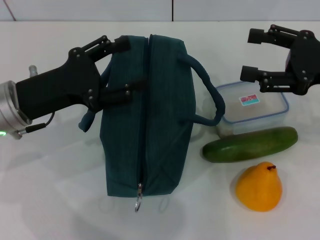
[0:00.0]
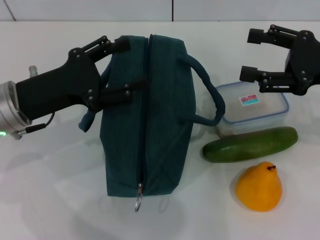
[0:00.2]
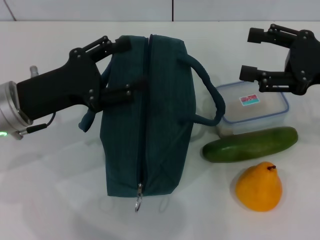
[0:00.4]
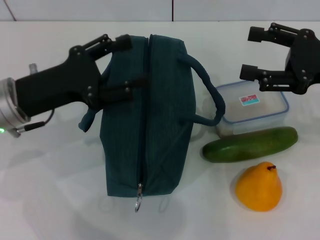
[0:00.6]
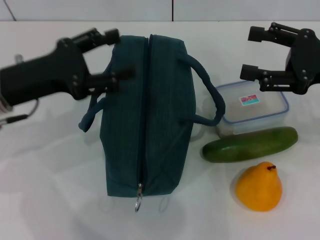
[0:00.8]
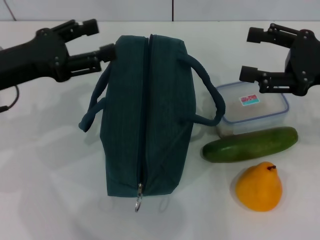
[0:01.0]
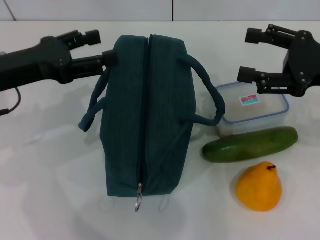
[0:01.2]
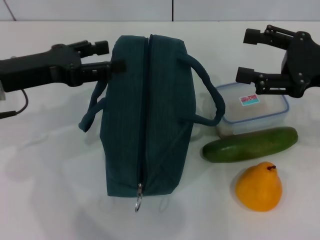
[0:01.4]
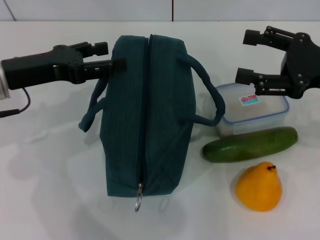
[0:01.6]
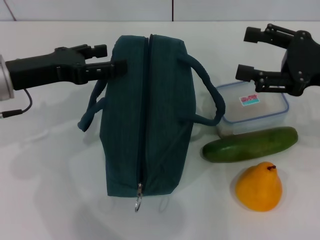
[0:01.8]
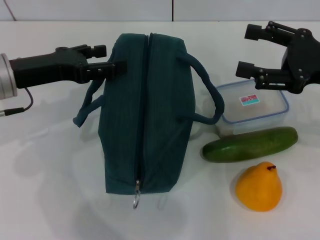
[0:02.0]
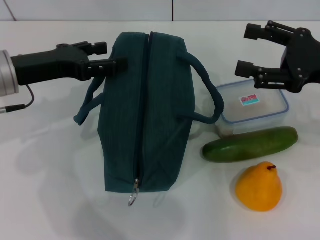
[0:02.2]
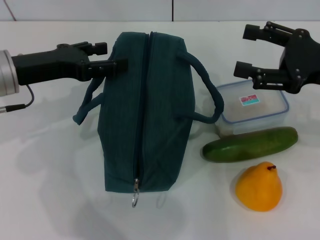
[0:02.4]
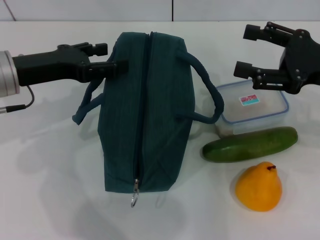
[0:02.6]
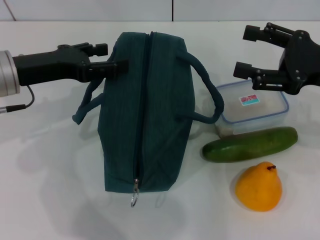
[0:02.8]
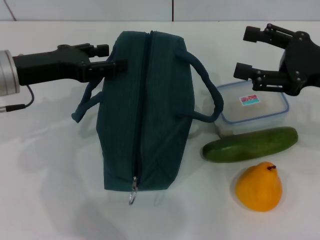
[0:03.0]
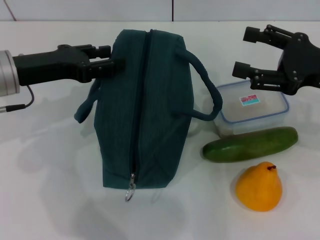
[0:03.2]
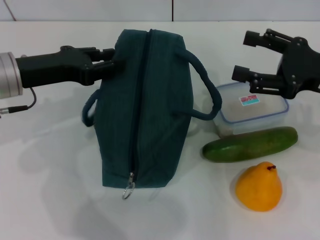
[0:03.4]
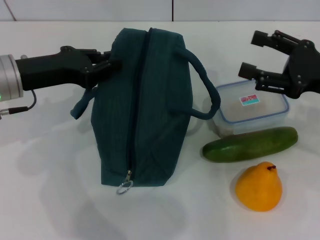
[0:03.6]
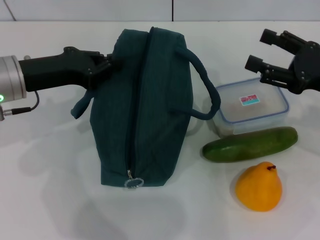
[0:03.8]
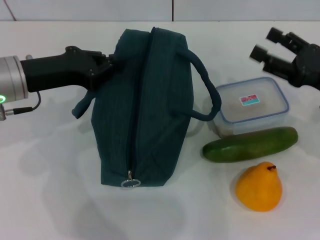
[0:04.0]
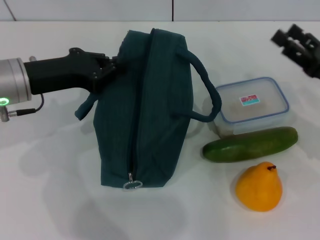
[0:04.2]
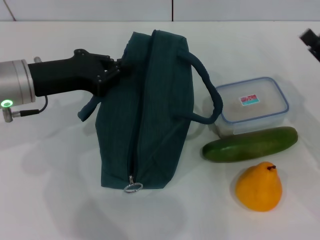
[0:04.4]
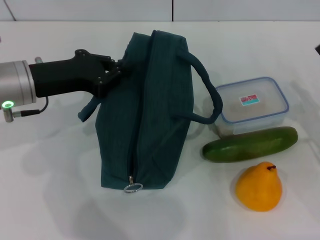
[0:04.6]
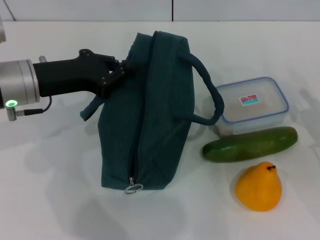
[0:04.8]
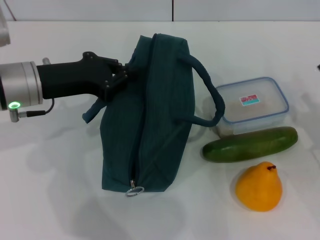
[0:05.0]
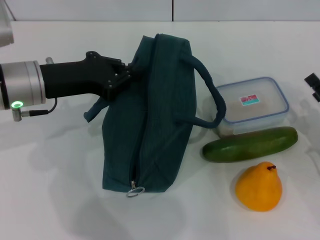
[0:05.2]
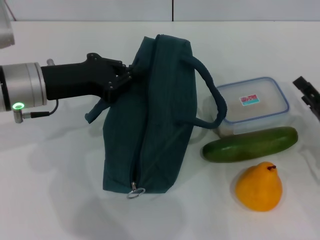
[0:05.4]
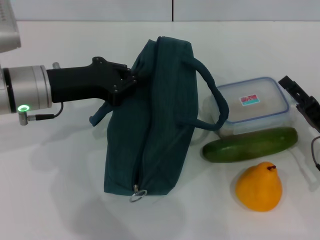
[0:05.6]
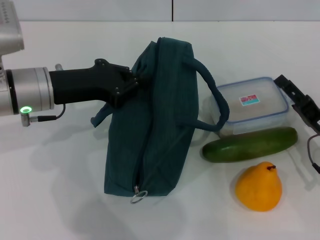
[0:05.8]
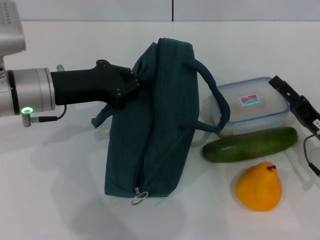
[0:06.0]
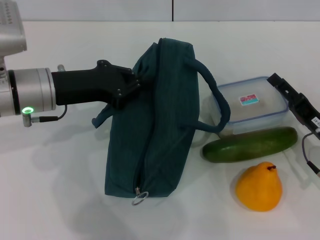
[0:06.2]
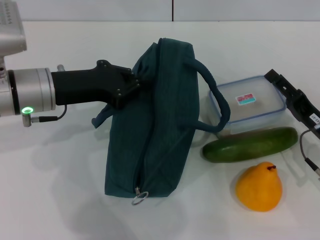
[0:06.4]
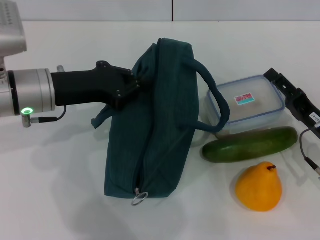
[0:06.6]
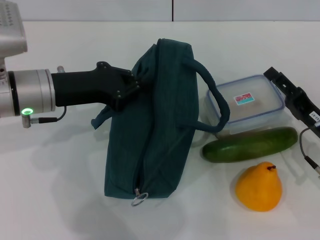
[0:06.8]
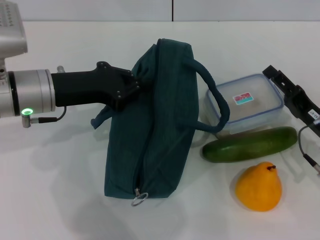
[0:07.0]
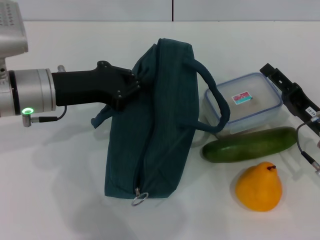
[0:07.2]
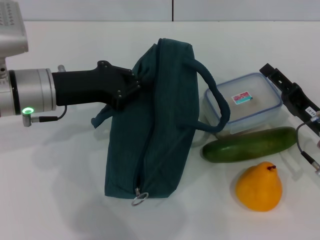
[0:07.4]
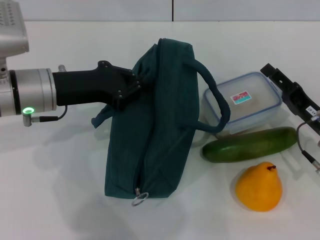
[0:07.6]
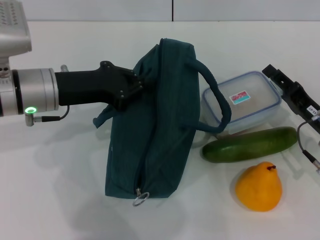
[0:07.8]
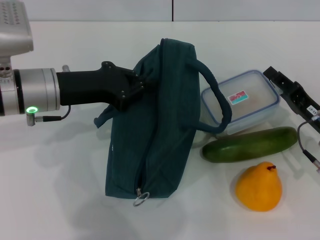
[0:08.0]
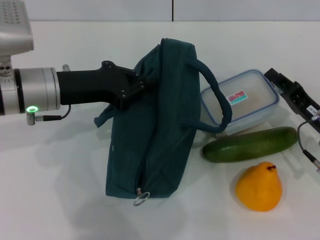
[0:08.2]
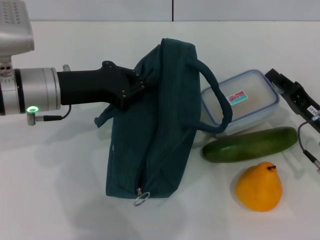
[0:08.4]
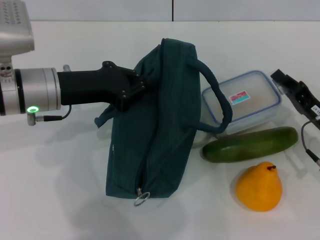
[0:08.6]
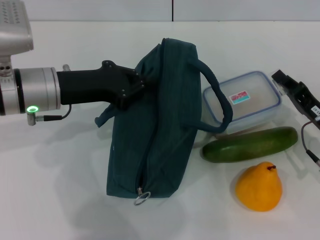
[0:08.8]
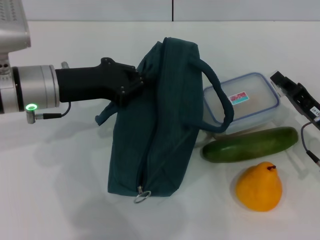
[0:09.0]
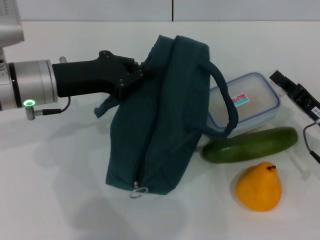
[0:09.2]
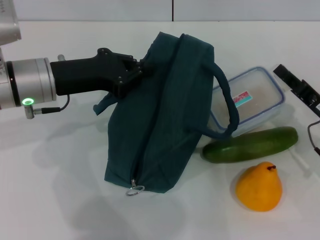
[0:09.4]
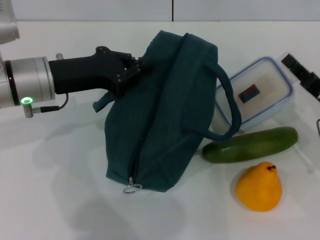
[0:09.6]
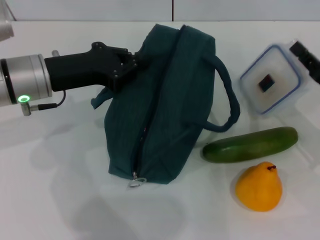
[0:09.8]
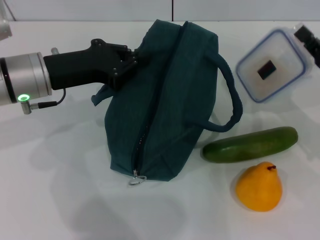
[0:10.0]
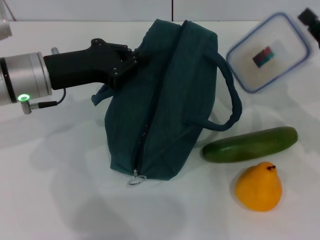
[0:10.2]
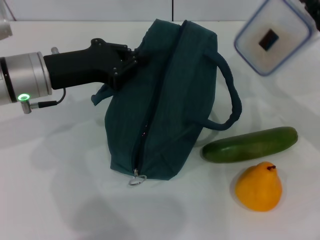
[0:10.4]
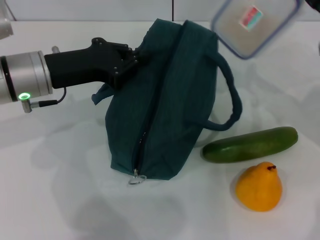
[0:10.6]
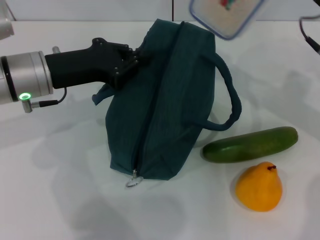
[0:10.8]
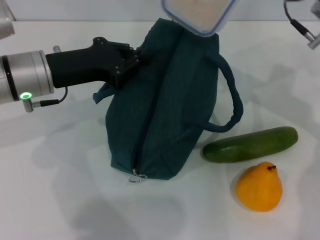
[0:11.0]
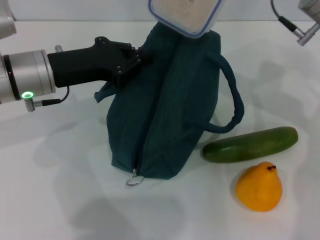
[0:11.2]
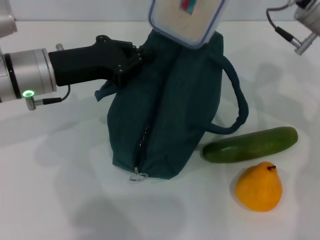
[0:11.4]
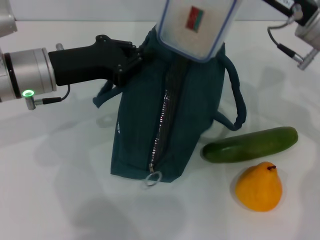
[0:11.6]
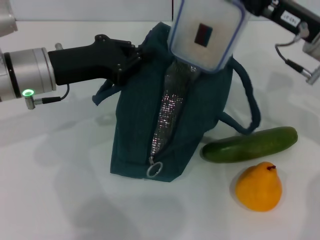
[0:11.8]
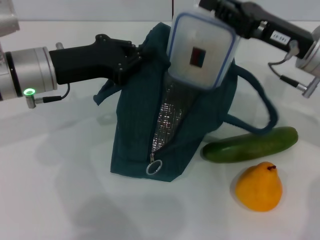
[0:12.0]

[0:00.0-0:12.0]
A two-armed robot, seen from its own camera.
Step, 0:00.0 to 0:04.0: Hold the lunch bag with your left hand.
Step, 0:04.2 to 0:09.2: Pick up the lunch box with your right hand.
0:01.6 to 0:03.0: The grippers make only small movements.
0:03.0 to 0:04.4: The right gripper shifts approximately 10 cm downward. The left gripper closes up.
0:04.4 to 0:06.0: The right gripper moves some 5 cm.
0:06.0 to 0:07.6: The grippers move only a little.
0:07.6 to 0:09.0: The right gripper closes its fingers.
0:09.0 to 0:10.4: The right gripper goes approximately 10 cm upward.
0:10.4 to 0:12.0: The right gripper is displaced to the left by about 10 cm.

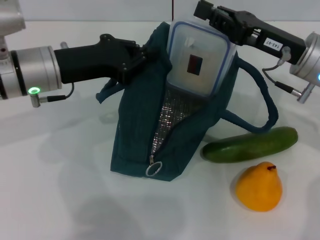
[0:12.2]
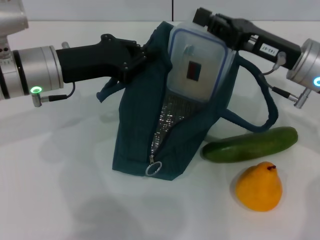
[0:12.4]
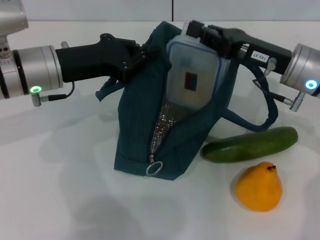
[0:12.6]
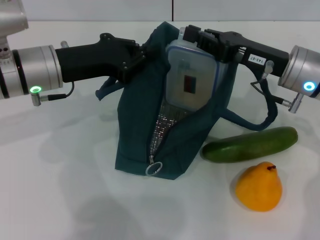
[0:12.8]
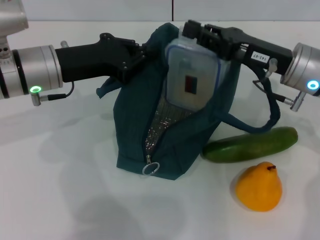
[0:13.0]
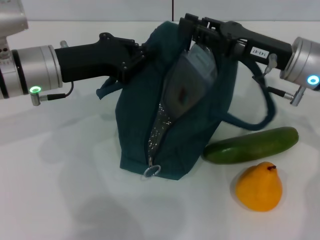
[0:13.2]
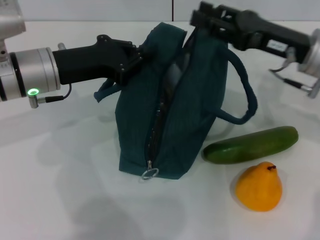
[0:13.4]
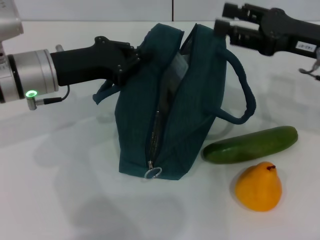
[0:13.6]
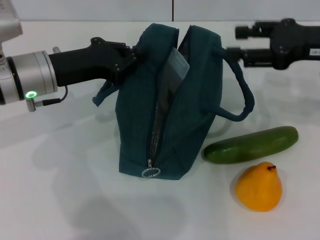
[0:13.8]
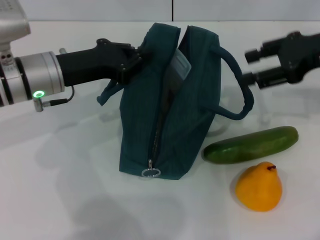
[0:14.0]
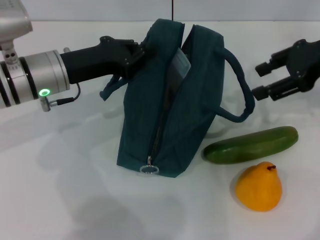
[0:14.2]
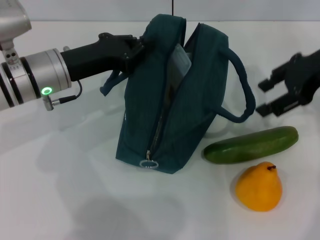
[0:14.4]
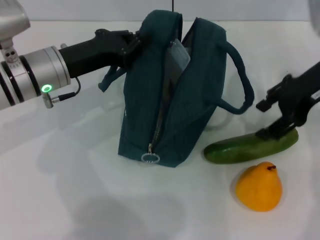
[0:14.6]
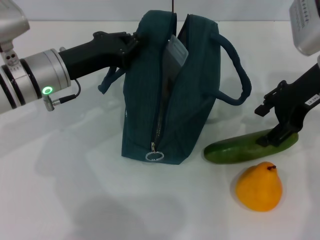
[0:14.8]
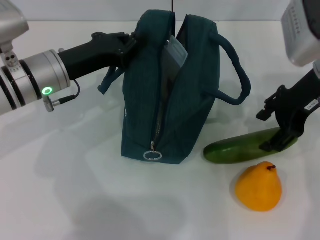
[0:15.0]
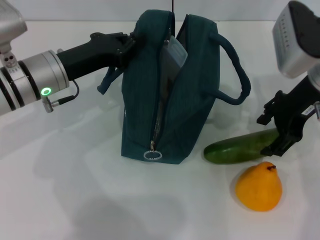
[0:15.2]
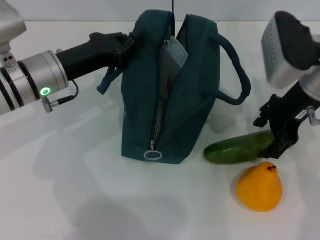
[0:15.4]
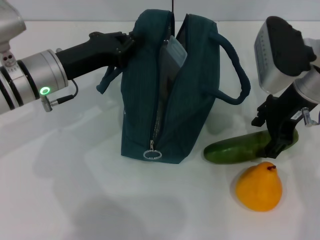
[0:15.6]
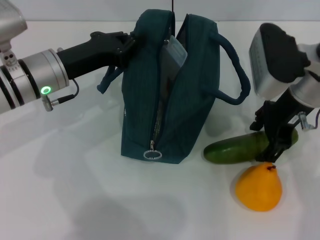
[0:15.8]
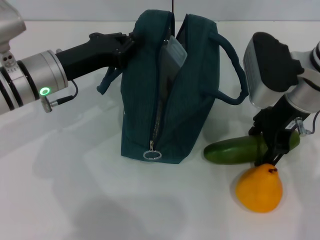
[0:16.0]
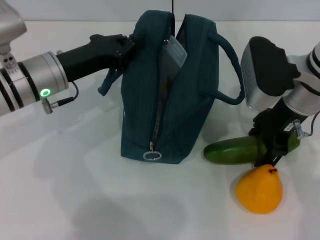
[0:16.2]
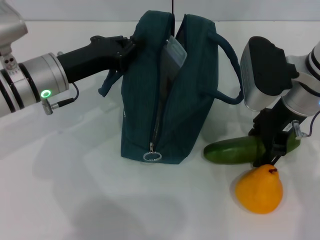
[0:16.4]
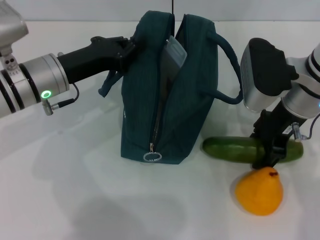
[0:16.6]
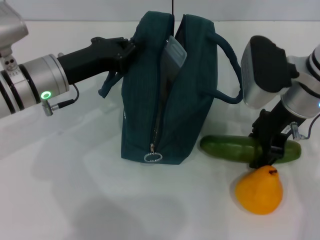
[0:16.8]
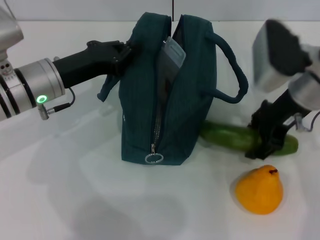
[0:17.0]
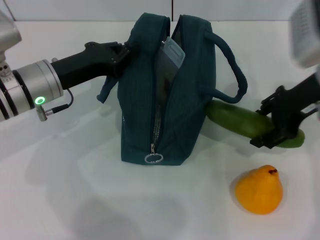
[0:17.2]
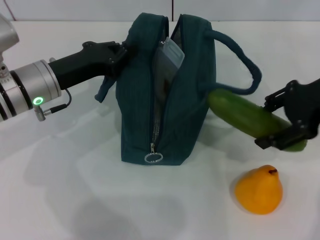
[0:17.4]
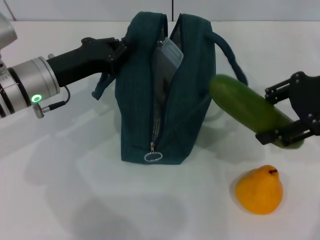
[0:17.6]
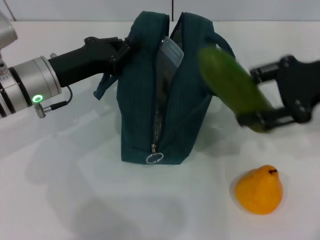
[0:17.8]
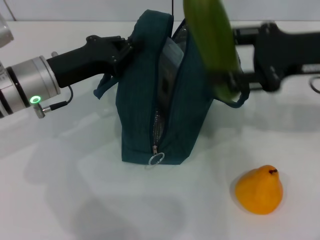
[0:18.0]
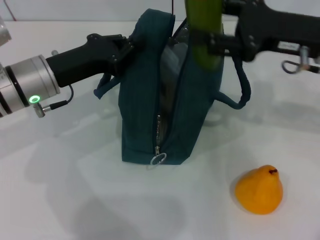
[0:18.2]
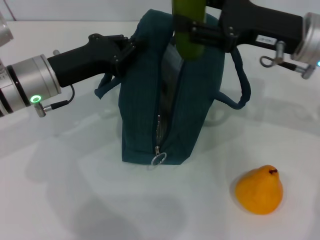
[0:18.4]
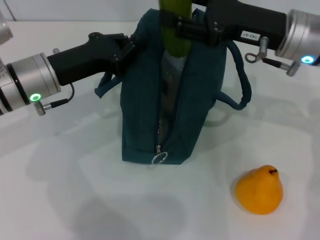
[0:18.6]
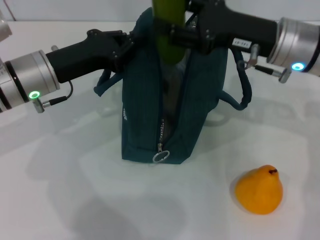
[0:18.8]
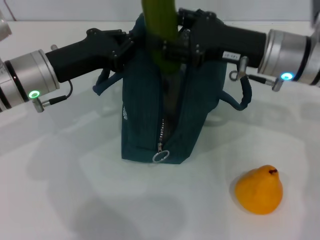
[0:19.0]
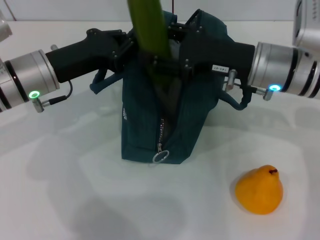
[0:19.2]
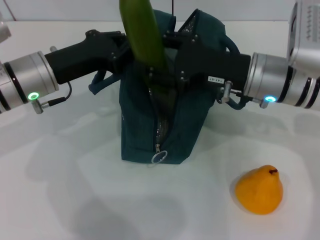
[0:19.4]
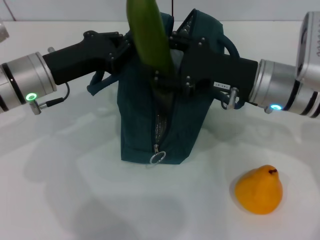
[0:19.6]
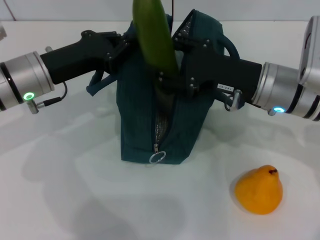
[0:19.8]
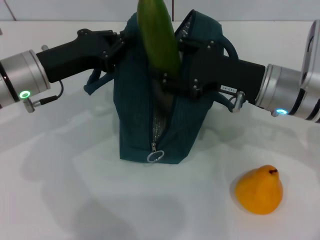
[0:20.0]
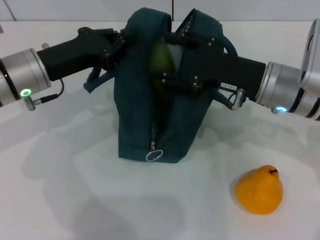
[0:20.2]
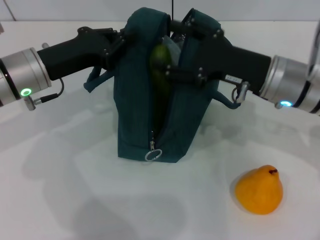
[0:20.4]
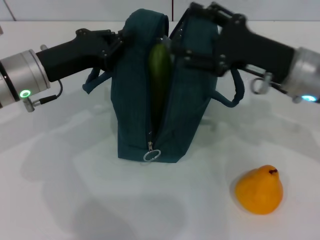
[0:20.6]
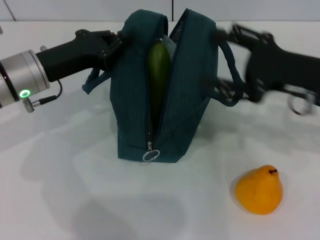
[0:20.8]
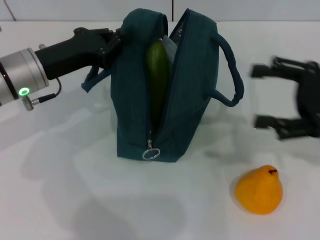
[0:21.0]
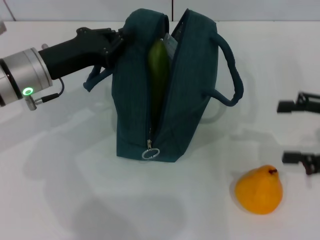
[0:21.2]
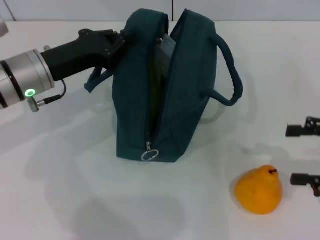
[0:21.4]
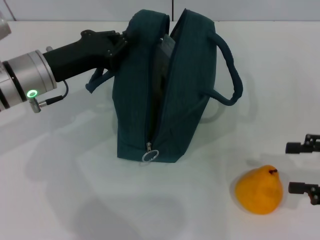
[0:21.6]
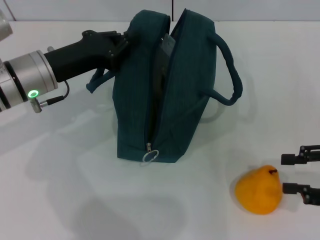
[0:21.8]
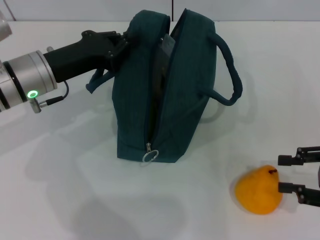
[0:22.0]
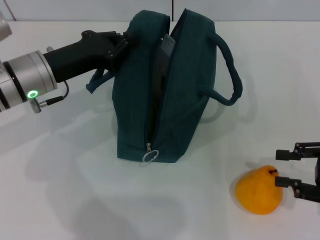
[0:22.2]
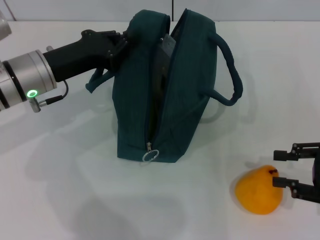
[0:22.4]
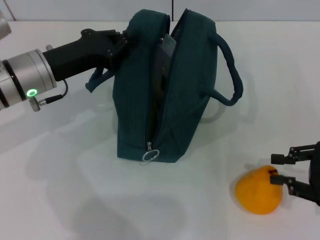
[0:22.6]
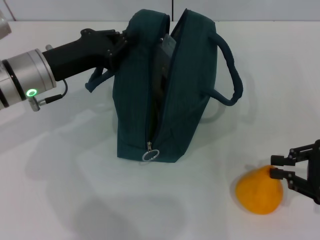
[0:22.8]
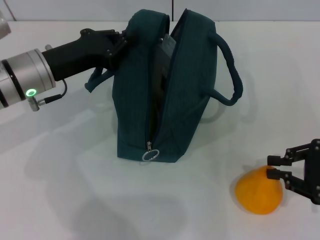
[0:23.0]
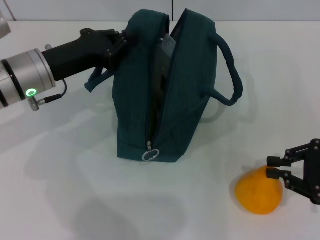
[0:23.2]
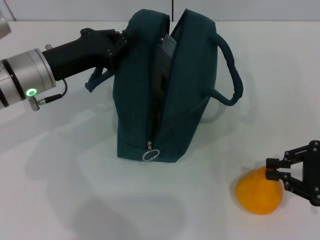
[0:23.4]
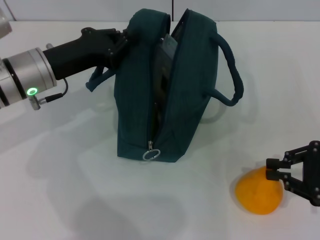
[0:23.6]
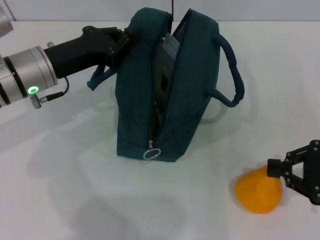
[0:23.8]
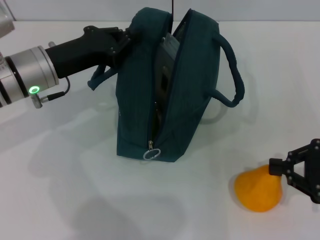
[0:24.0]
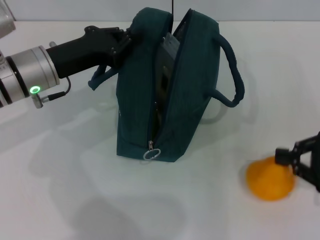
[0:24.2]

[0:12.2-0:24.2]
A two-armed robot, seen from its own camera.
Step, 0:13.4 to 0:16.8: Pick up the cucumber with your right hand.
Step, 0:17.0 to 0:20.8: Put the cucumber into the lunch bag with your right hand.
Step, 0:21.0 to 0:23.6: Grab the pear with your right hand.
0:12.2 to 0:13.8: The right gripper moves to the right and upward, approximately 10 cm, and opens up.
0:13.8 to 0:15.2: The right gripper moves to the left, approximately 5 cm.
0:15.2 to 0:16.6: The grippers move only a little.
0:18.2 to 0:19.8: The right gripper travels downward and to the left by some 10 cm.
0:19.8 to 0:21.2: The right gripper shifts about 15 cm to the right.
0:21.2 to 0:22.6: The right gripper moves downward, about 5 cm, and closes up.
0:22.6 to 0:24.2: The right gripper closes.
